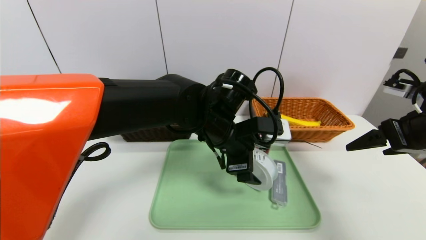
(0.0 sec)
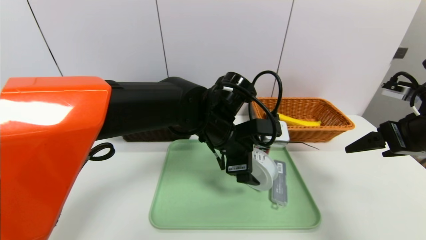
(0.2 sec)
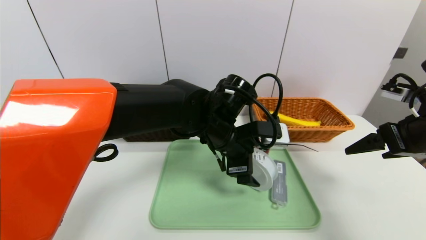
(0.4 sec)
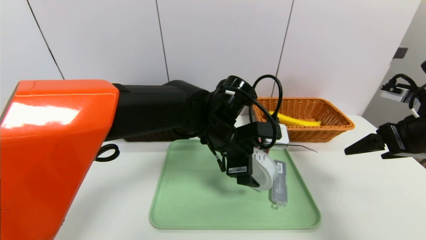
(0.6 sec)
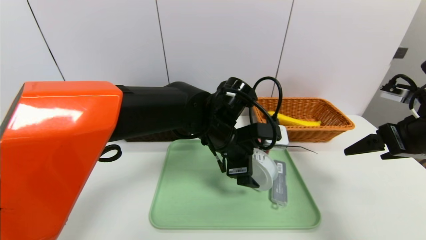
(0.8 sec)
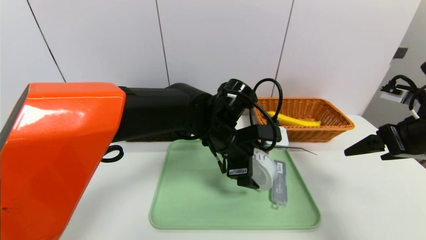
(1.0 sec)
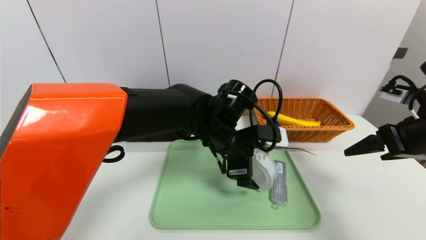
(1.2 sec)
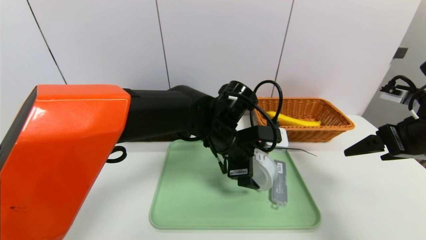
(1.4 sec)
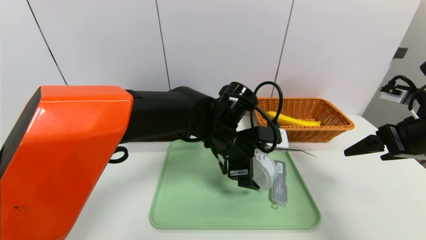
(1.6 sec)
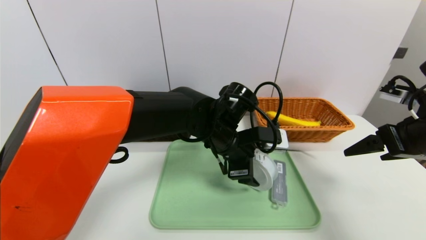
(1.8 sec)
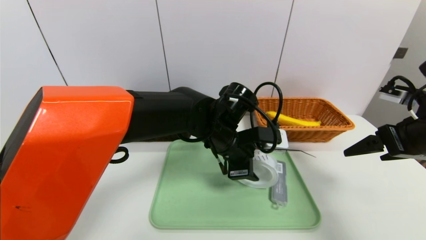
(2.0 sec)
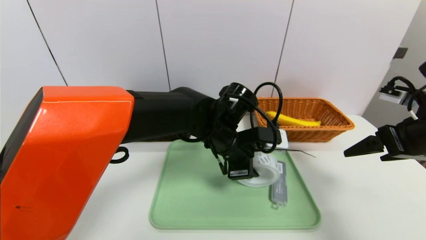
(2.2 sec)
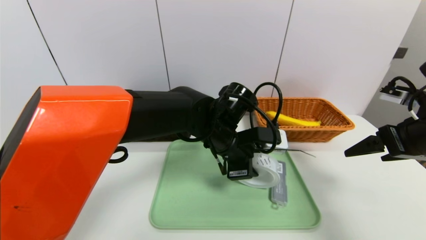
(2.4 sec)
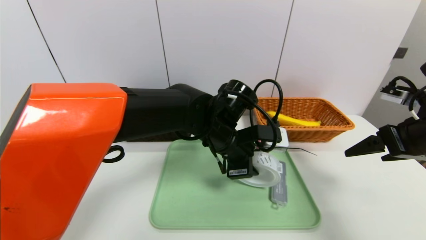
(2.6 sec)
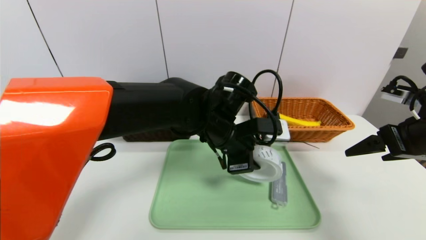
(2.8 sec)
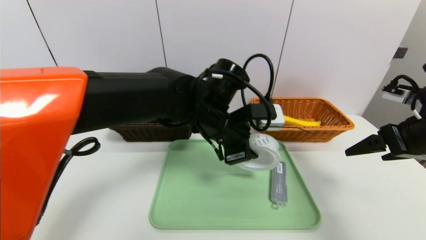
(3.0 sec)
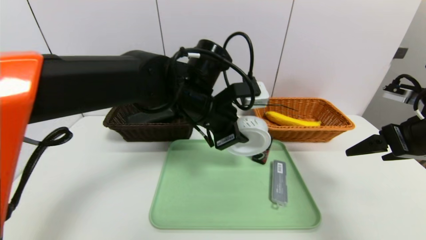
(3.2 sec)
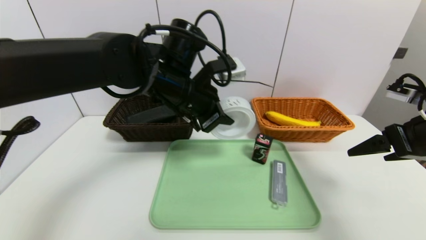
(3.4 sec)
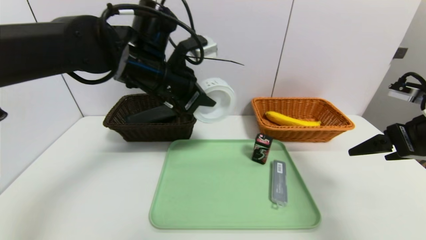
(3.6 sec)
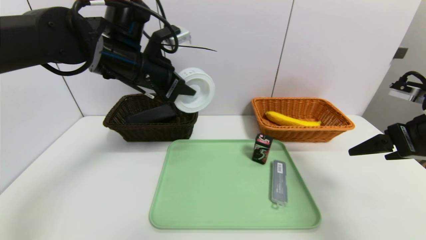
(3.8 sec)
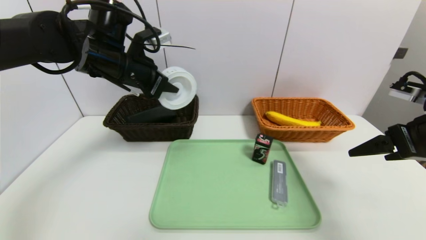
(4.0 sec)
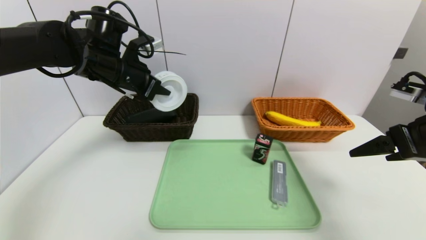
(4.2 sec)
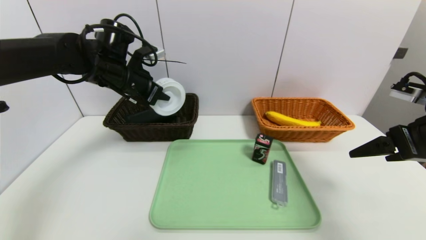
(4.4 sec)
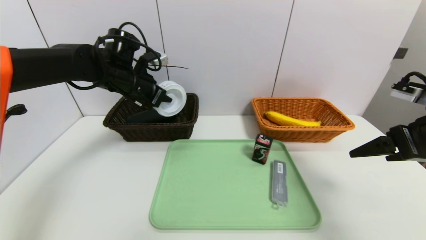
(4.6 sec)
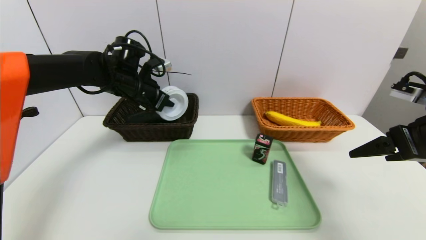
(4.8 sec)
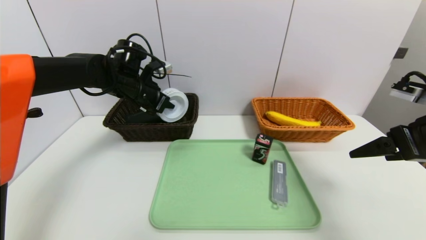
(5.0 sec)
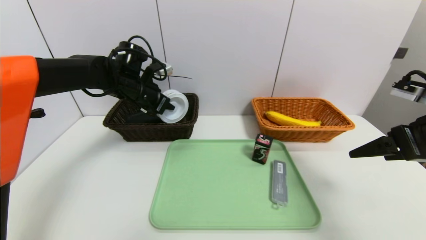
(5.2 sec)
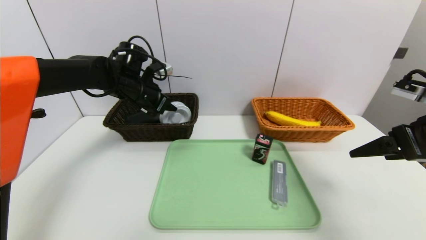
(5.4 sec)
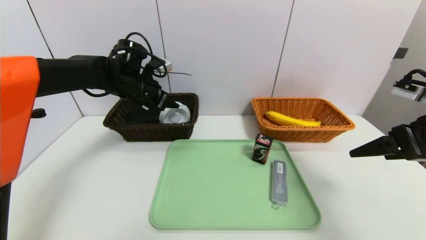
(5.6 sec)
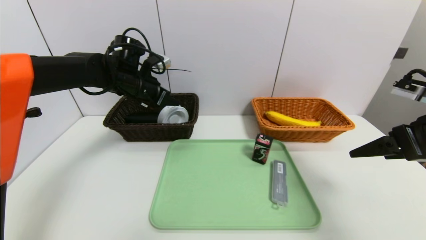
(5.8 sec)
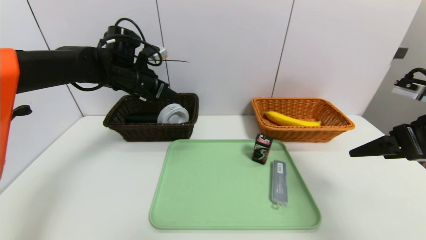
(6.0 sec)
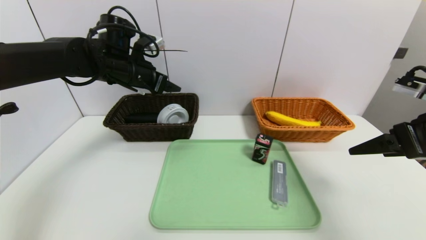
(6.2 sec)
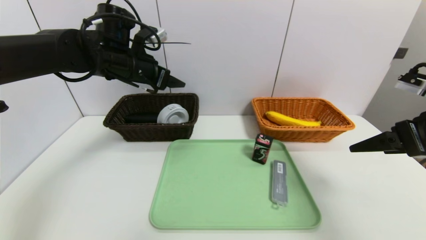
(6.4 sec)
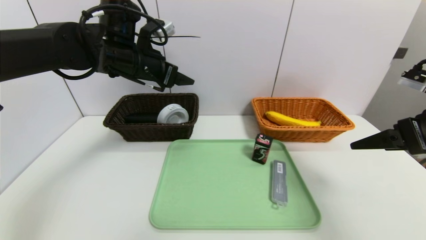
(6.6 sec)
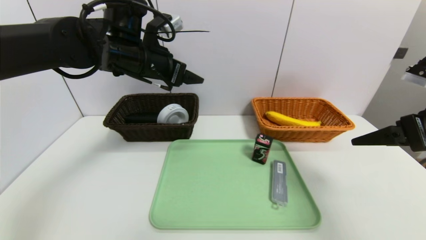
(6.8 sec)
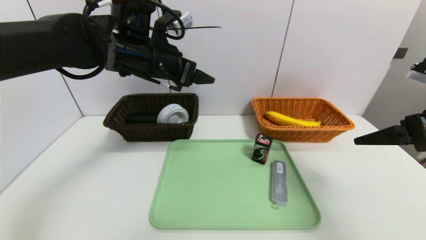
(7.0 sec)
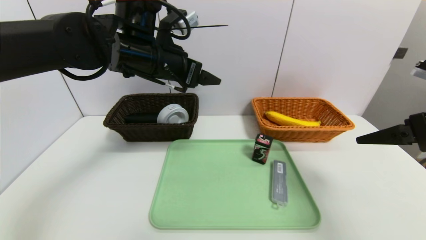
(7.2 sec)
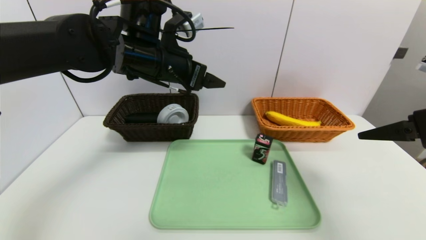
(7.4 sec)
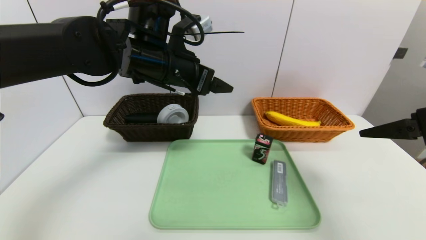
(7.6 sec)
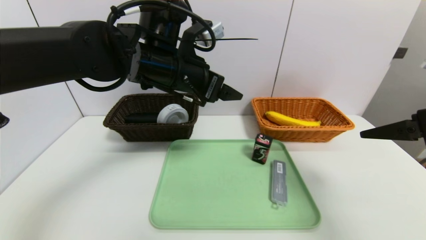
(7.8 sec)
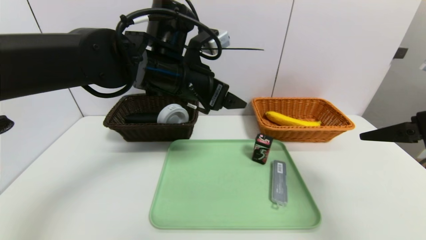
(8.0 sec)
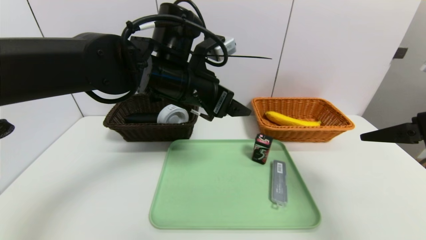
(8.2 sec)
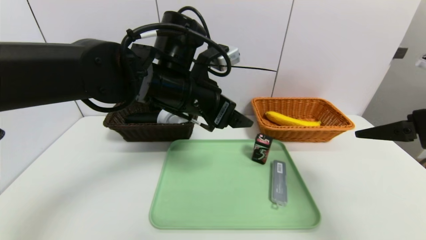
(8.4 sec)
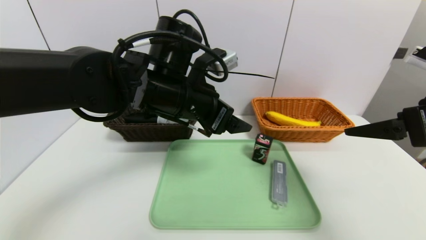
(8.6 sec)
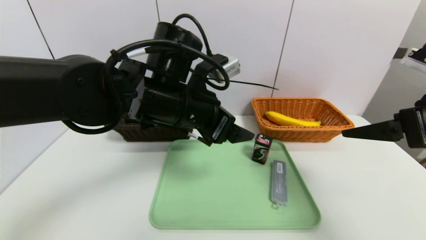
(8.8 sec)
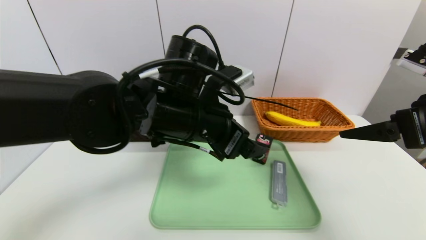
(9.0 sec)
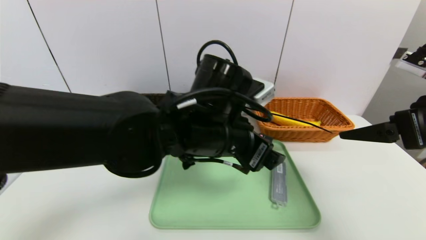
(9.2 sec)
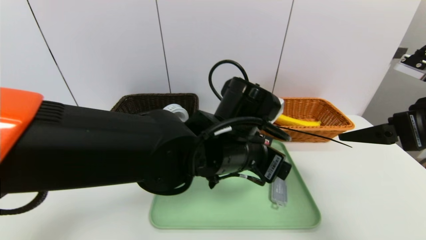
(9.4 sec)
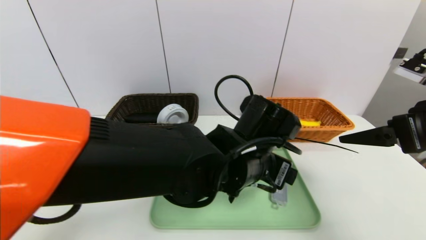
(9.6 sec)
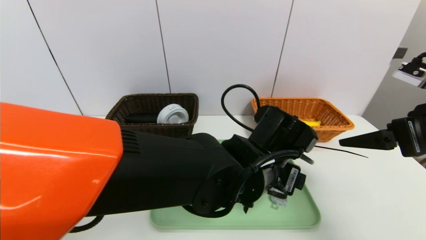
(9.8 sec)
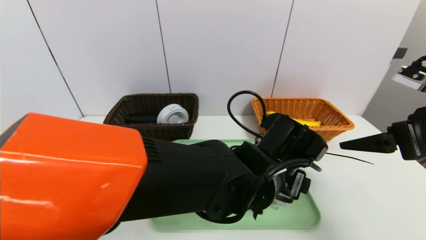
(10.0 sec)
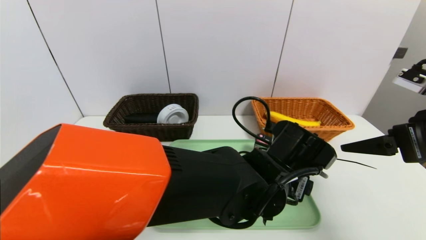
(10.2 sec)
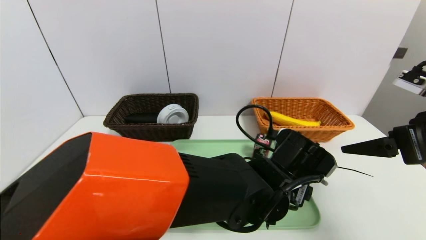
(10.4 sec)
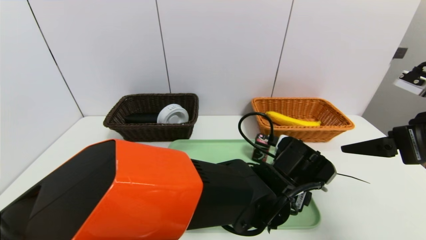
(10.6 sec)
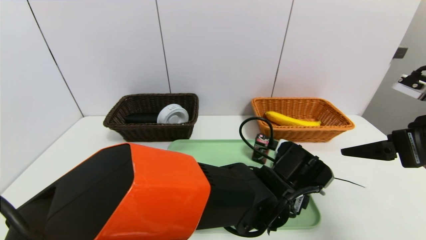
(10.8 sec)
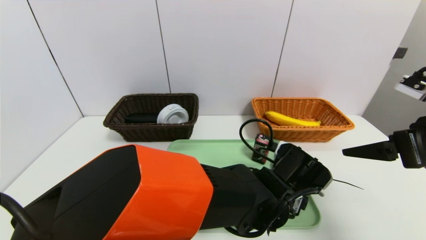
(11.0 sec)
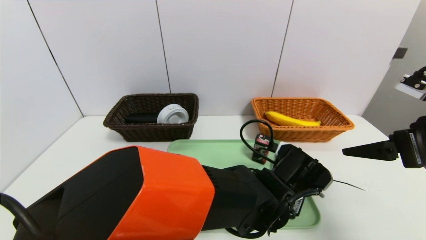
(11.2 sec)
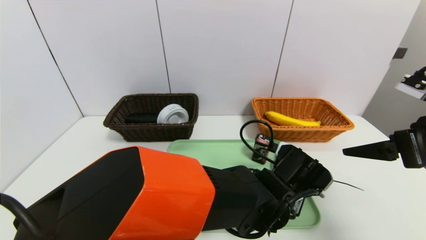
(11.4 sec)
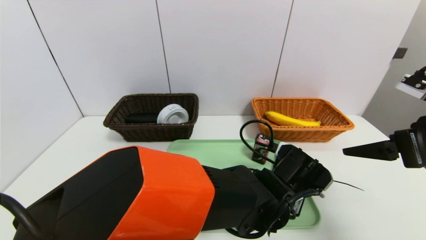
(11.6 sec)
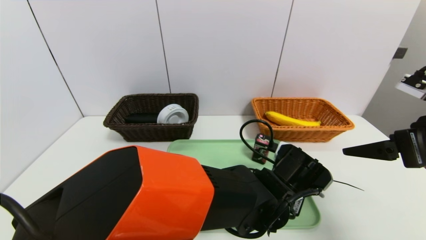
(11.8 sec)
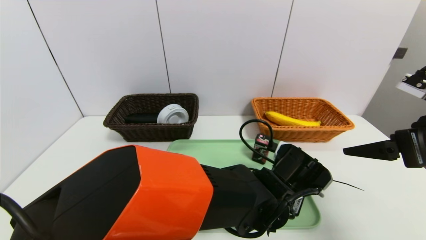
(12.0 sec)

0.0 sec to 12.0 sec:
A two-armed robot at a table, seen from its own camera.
Task of the whole recording: place the food in the right basket with the right gripper, and place the non food items in the left basket with the left gripper.
Step, 0.0 sec to 5.8 sec: Grasp the tape and put it in the left basket.
0.0 sec to 1.6 sec: The grippers stay close to where they were, moving slightly.
1.6 sec to 3.0 sec: The left gripper closes.
3.0 sec to 4.4 sec: The left gripper travels to the left and forward by about 20 cm.
4.4 sec to 6.0 sec: The left gripper opens its fingers.
6.0 sec to 7.6 sec: The left gripper moves to the right and backward, roughly 15 cm.
7.6 sec to 9.0 sec: The left gripper heads backward, downward and to the right, covering about 10 cm.
9.0 sec to 10.4 sec: The left gripper heads to the right and downward, covering some 20 cm.
10.4 sec to 12.0 sec: The left gripper closes its fingers.

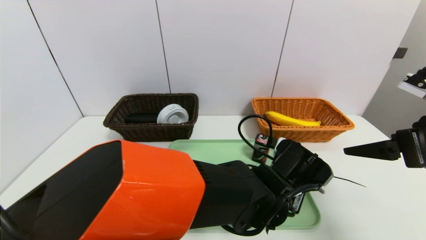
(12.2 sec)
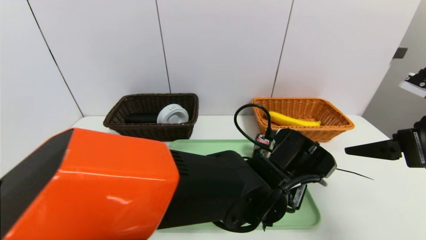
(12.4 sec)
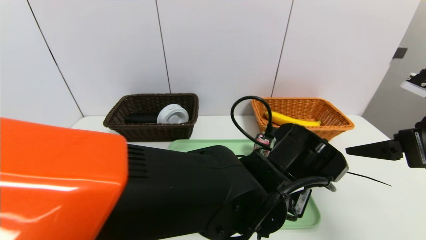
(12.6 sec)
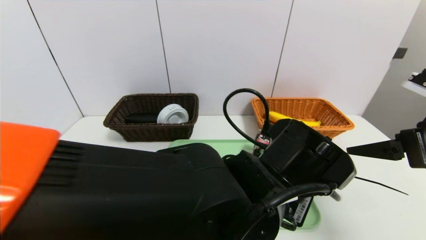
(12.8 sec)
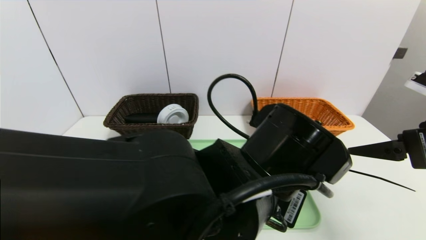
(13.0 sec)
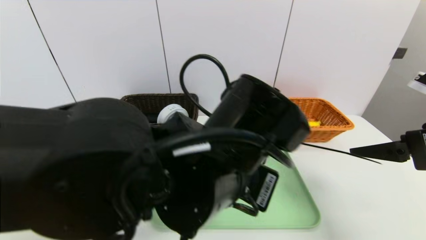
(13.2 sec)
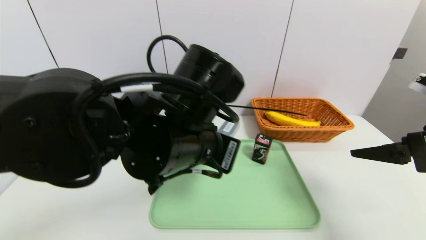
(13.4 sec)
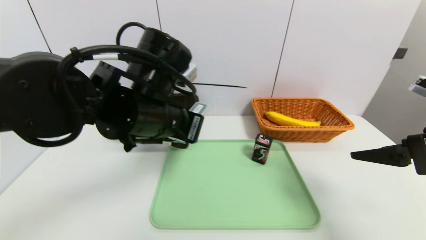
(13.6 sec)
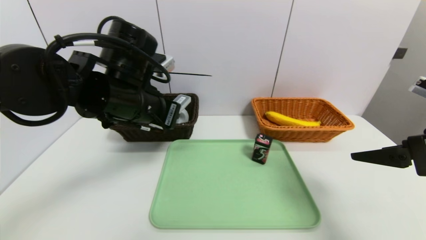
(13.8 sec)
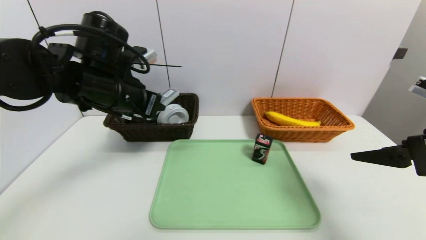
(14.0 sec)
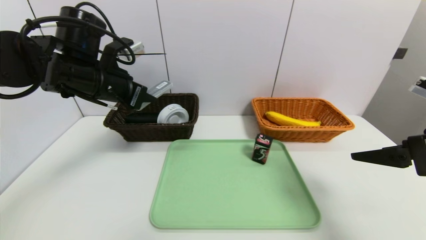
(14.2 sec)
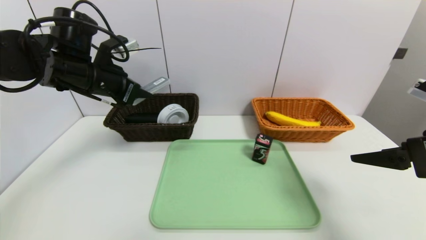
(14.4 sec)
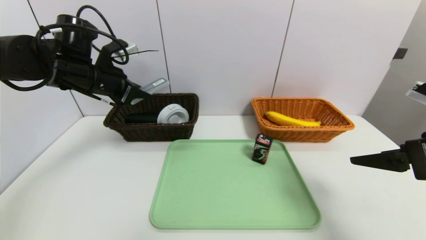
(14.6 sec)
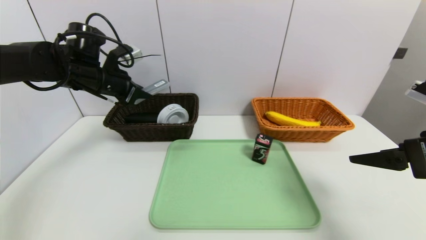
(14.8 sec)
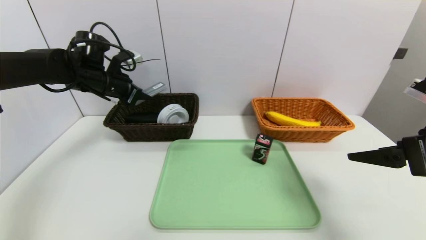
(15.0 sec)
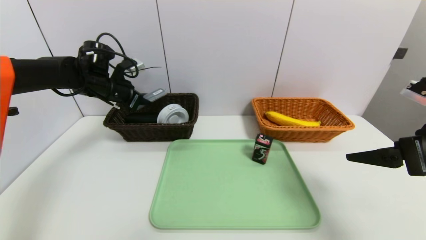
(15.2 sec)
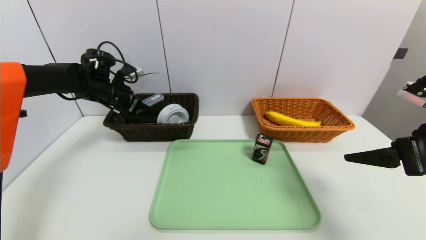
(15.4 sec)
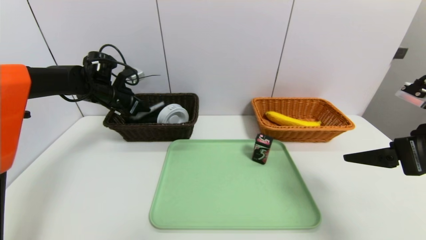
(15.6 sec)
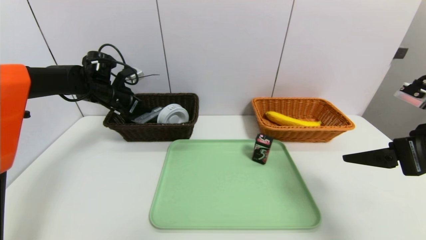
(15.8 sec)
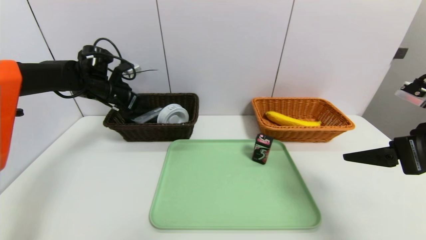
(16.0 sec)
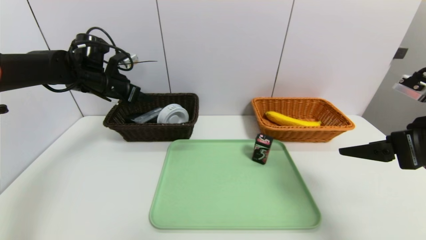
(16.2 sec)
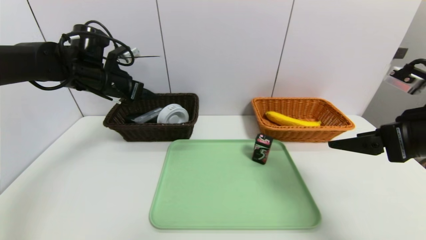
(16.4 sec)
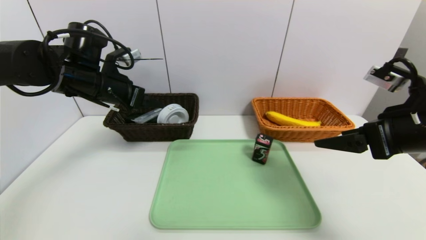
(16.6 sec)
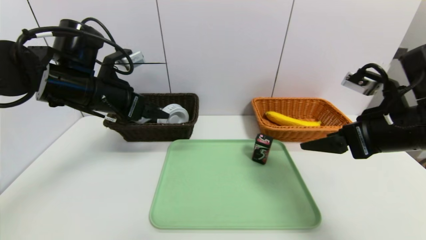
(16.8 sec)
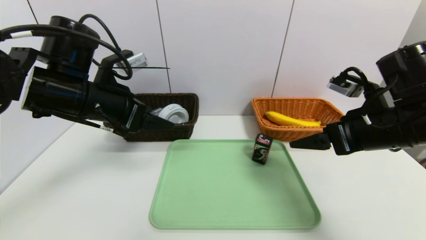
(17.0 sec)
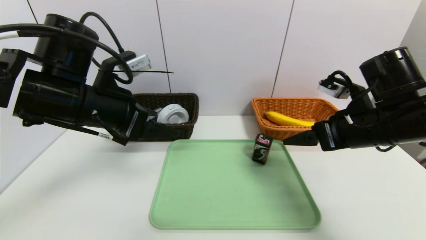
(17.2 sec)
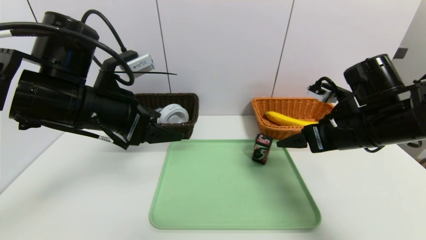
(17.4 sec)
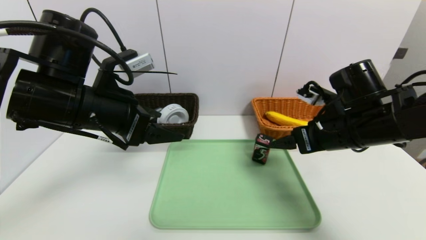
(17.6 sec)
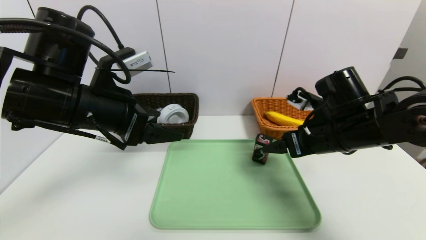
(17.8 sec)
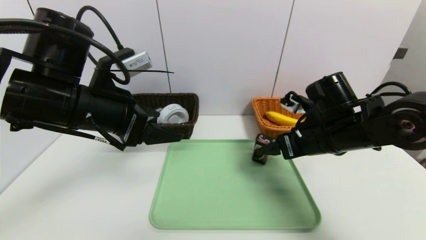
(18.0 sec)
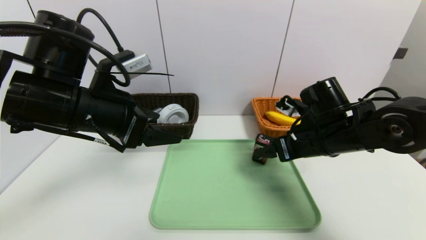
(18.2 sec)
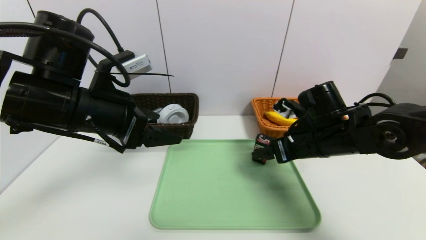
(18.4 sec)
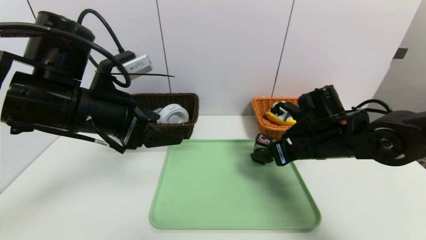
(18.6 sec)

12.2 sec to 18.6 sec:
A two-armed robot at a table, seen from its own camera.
Task of the whole recording: place the food in the right basket with the right gripper, and place the non food items in the left basket with the left gripper.
Step, 12.2 sec to 16.4 sec: Grasp the compass and put it in the left basket.
12.2 sec to 13.8 sec: The left gripper travels to the left and upward by about 30 cm.
13.8 sec to 15.4 sec: The left gripper travels forward and to the left by about 25 cm.
15.4 sec to 17.0 sec: The left gripper is displaced backward and to the right by approximately 20 cm, and opens. The right gripper travels to the left and forward by about 10 cm.
17.0 sec to 18.6 sec: The right gripper travels downward, to the left and forward by some 10 cm.
